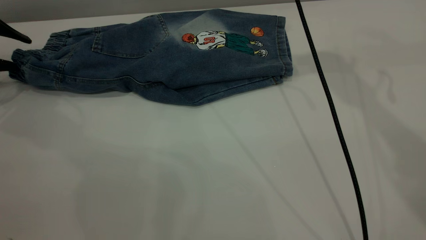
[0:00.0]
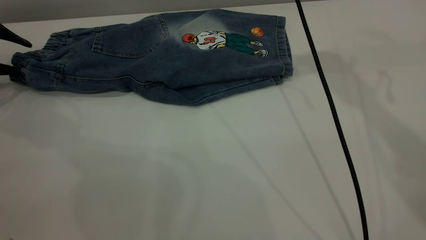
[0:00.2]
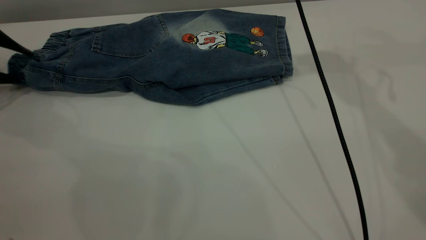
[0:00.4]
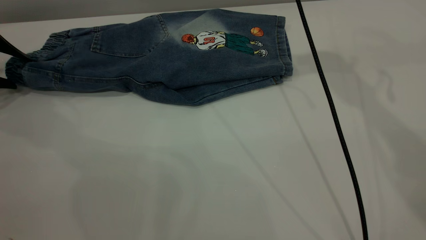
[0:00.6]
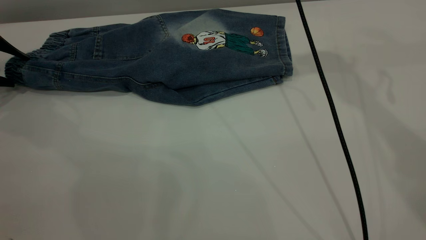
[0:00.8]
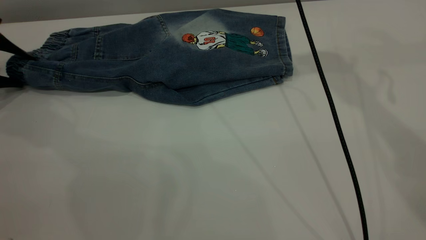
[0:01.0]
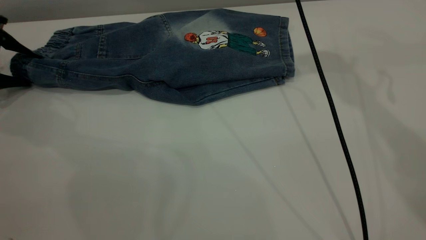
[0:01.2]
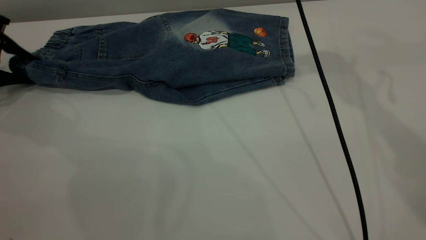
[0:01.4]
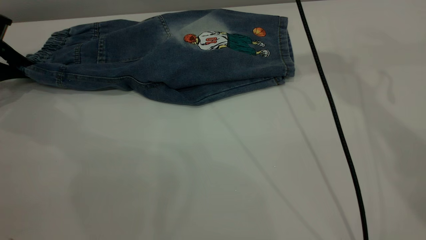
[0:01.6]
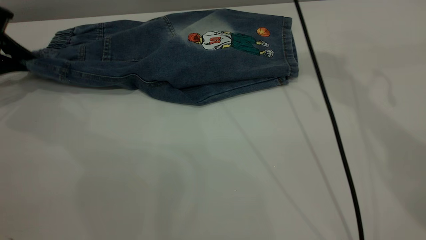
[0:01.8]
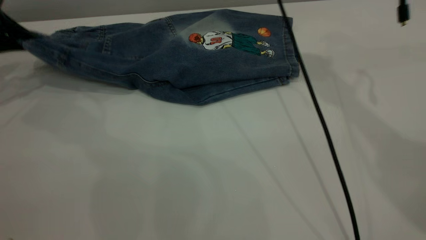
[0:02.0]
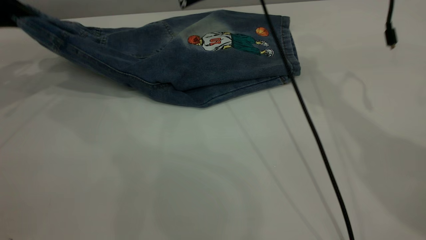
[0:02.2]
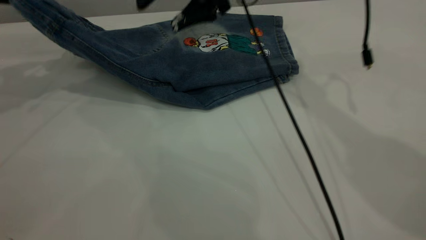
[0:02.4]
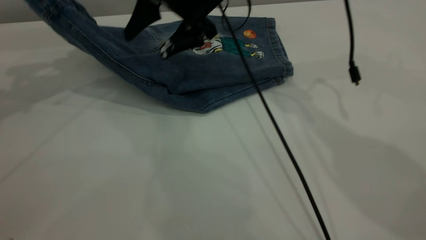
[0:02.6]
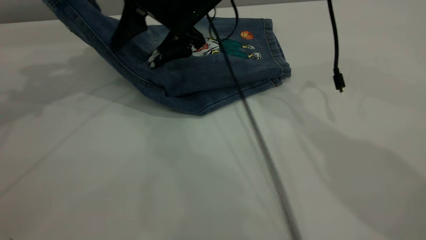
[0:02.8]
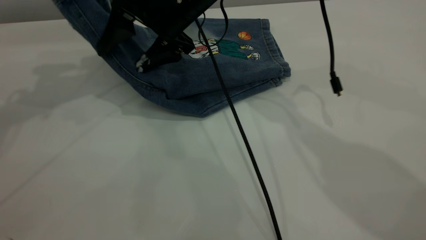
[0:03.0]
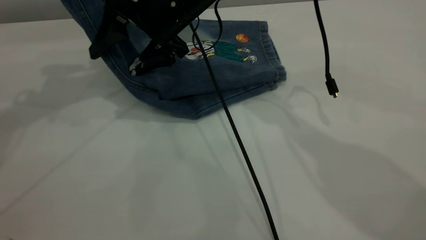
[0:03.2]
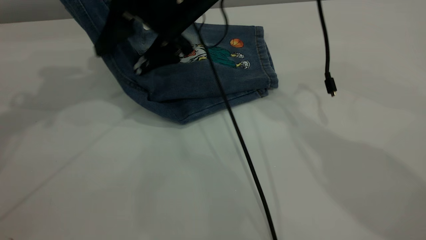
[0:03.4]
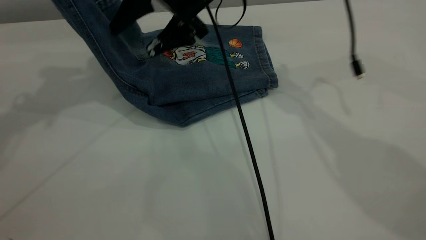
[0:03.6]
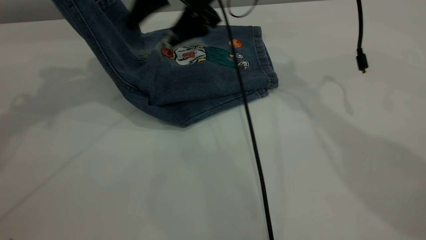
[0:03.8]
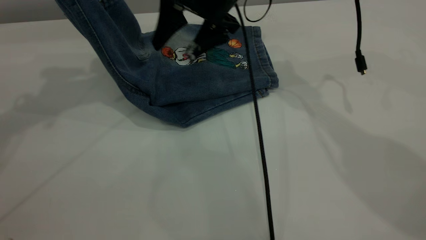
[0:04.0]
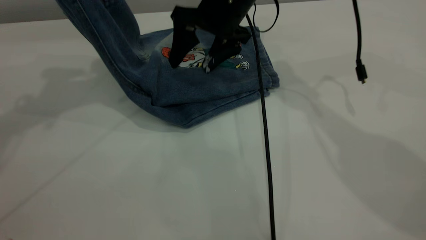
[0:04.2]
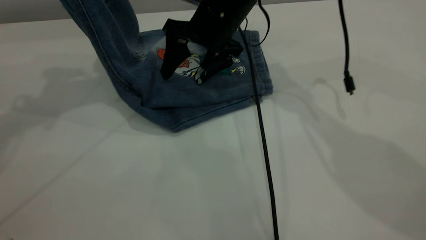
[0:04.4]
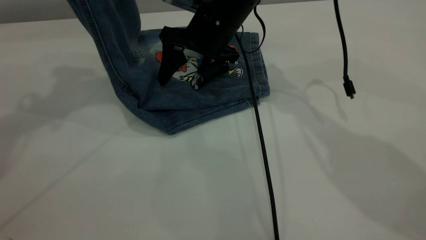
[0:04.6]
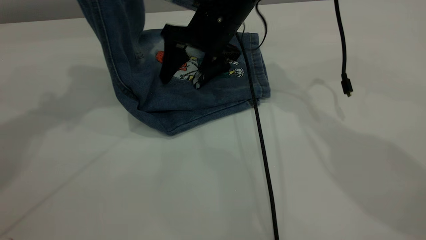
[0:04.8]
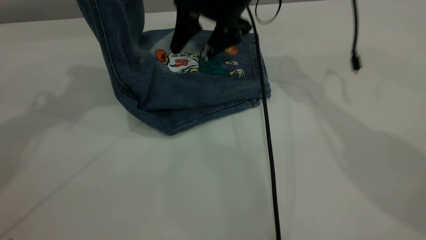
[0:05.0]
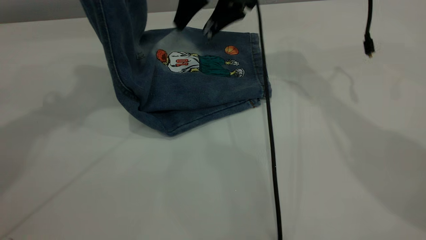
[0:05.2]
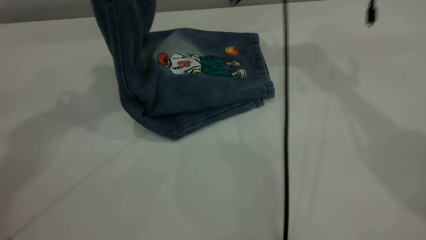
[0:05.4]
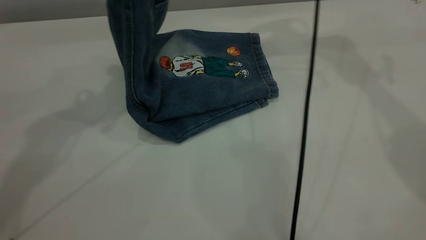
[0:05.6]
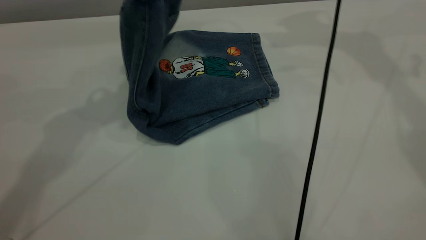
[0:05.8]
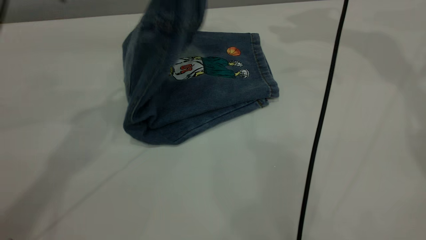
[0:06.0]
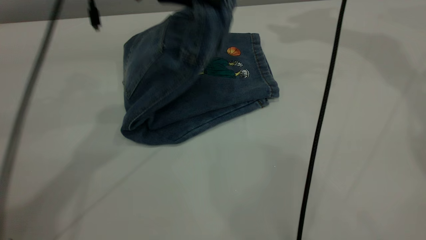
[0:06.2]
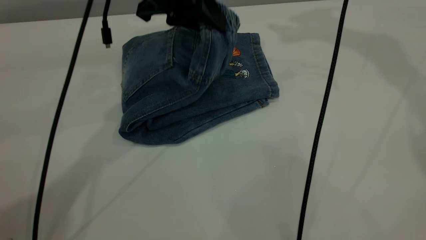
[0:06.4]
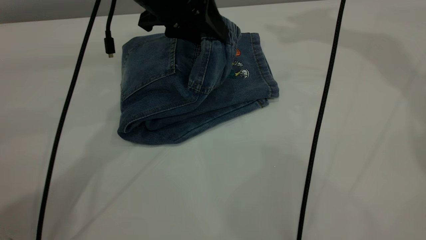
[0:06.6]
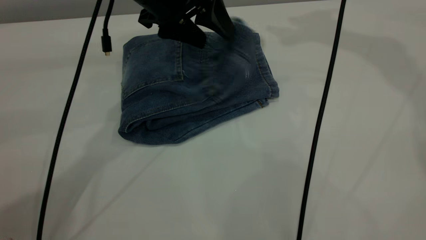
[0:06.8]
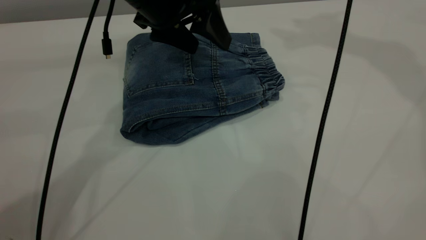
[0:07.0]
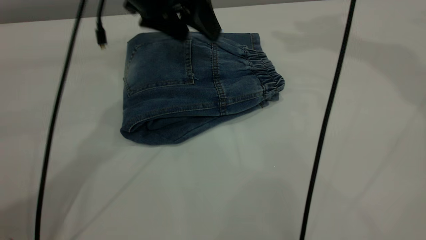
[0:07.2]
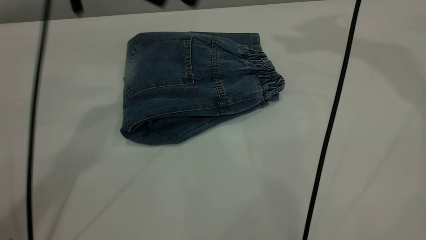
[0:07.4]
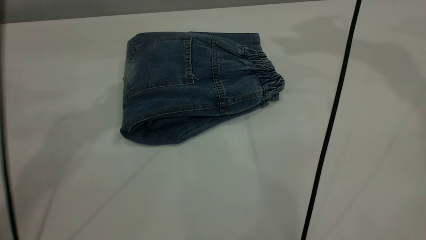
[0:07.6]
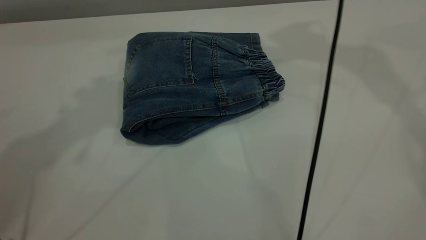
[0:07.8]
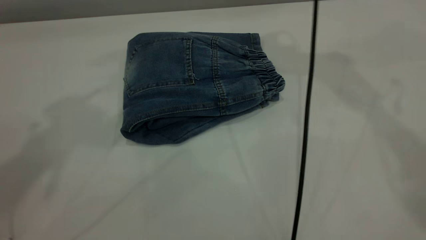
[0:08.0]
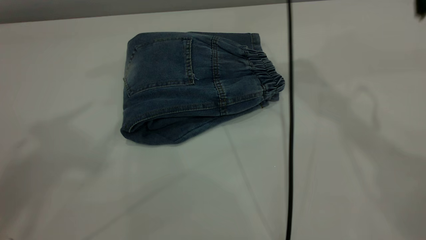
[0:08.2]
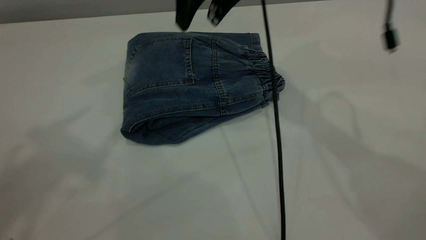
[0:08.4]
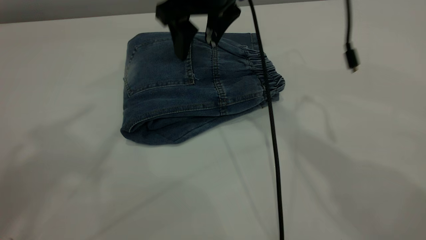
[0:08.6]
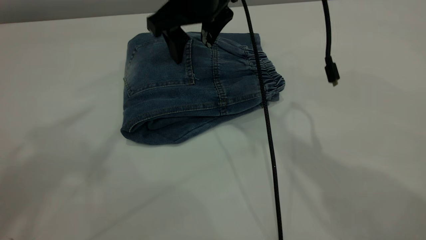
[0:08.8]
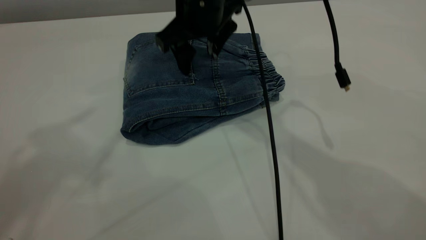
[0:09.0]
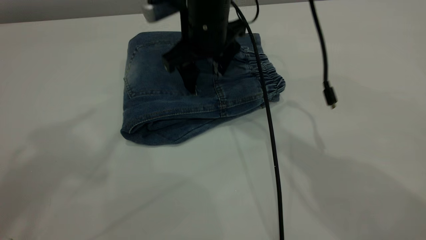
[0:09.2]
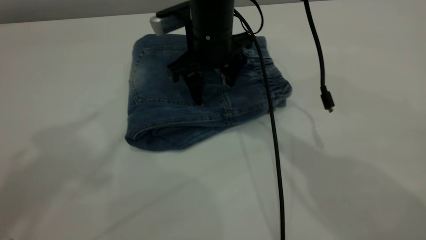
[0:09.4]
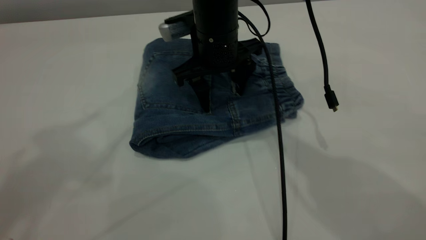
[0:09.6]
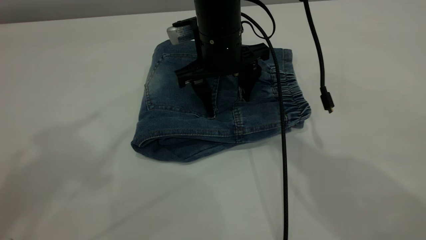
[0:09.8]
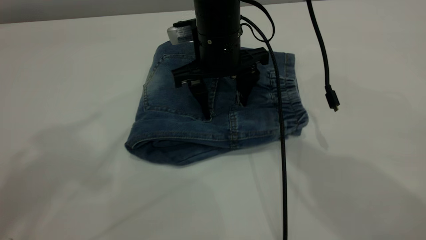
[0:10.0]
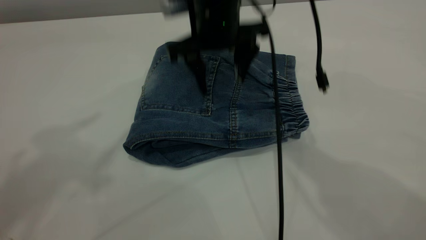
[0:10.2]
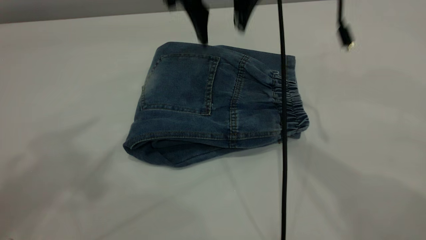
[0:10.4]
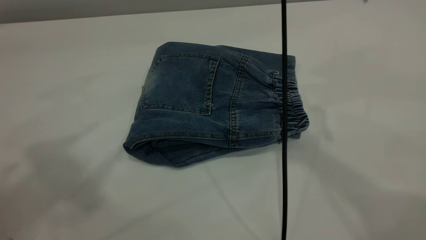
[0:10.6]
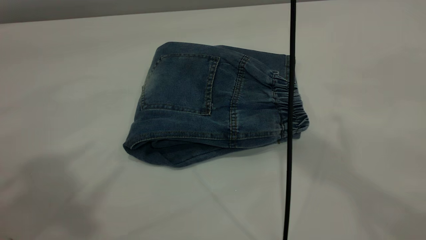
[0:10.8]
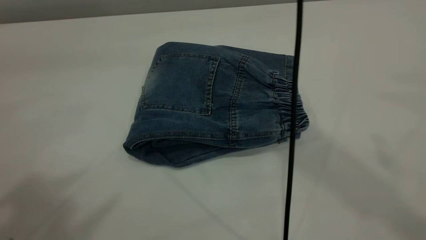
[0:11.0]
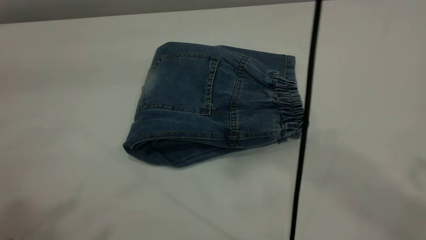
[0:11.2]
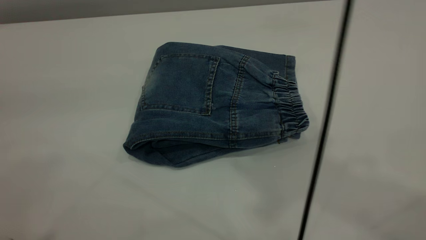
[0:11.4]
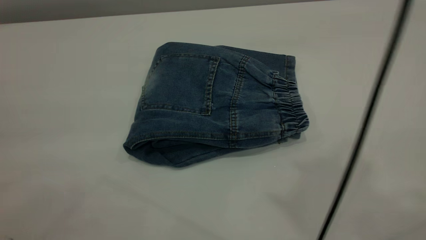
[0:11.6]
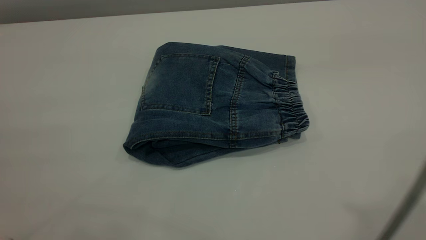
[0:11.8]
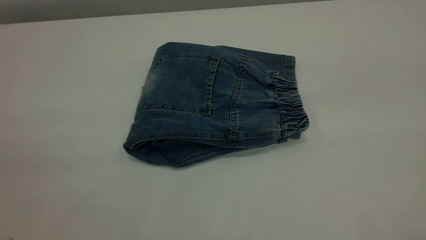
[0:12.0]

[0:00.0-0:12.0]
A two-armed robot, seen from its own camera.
Step, 0:00.0 to 0:07.8: Fold the pants from left to right.
0:00.0 to 0:01.6: The left gripper closes.
0:01.6 to 0:03.0: The left gripper heads upward and to the right, covering roughly 25 cm, while the right gripper moves downward and to the left, approximately 20 cm.
0:03.0 to 0:04.4: The right gripper shifts roughly 5 cm to the right.
0:04.4 to 0:06.0: The right gripper moves upward and to the right, roughly 30 cm. Meanwhile the left gripper heads to the right and downward, covering about 20 cm.
0:06.0 to 0:07.6: The left gripper moves upward and to the left, about 10 cm, and opens up.
0:07.6 to 0:09.0: The left gripper travels upward and backward by some 20 cm, while the right gripper moves downward and to the left, some 30 cm.
0:09.0 to 0:10.4: The right gripper shifts approximately 10 cm upward.
0:10.4 to 0:12.0: The right gripper travels backward, to the right and upward by about 40 cm. The left gripper heads backward and downward, covering approximately 25 cm.
